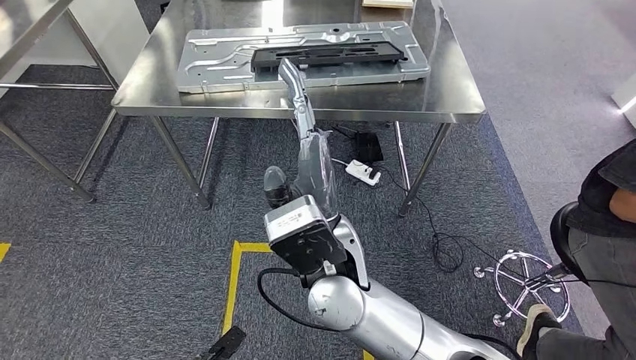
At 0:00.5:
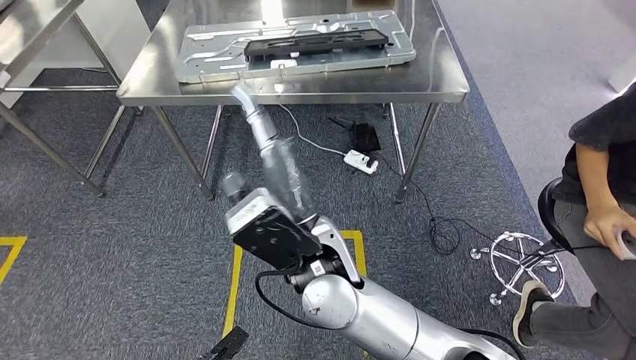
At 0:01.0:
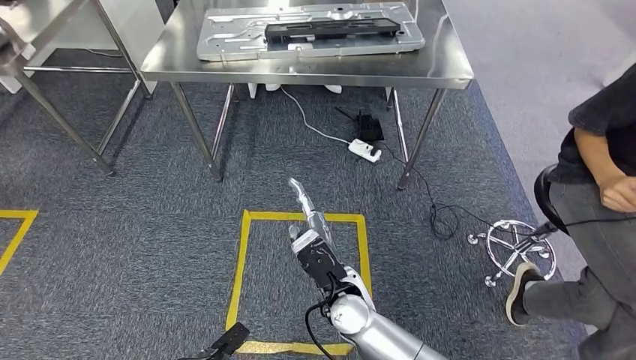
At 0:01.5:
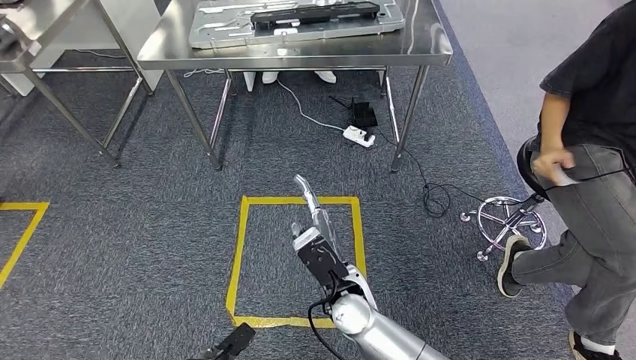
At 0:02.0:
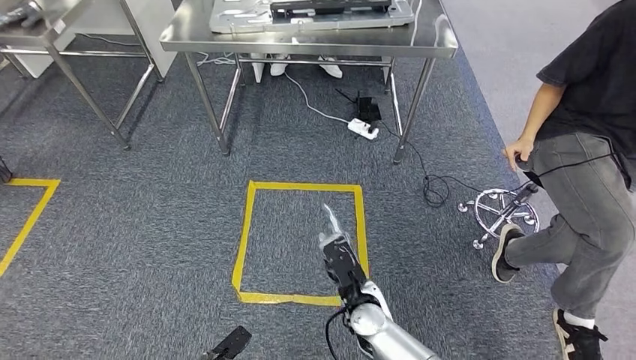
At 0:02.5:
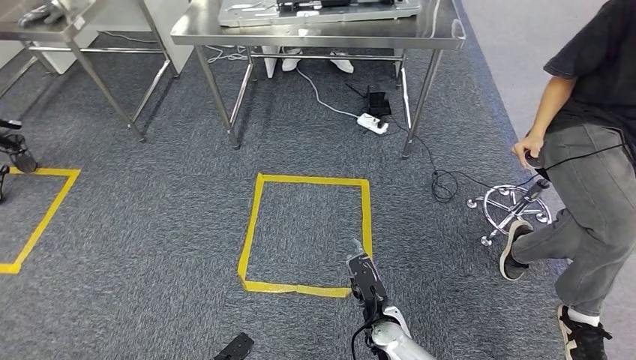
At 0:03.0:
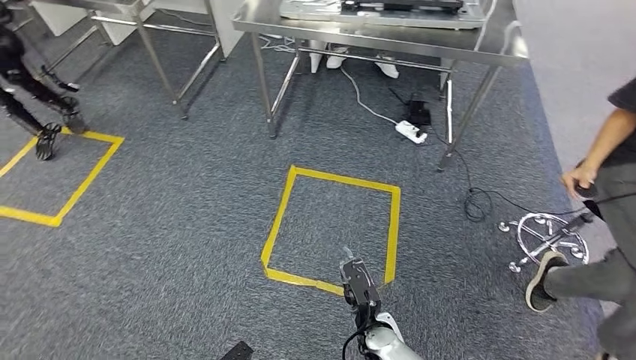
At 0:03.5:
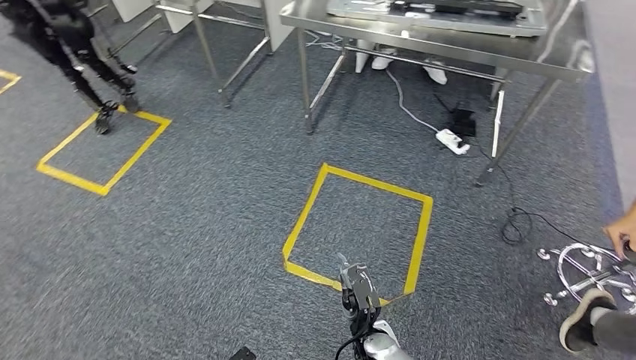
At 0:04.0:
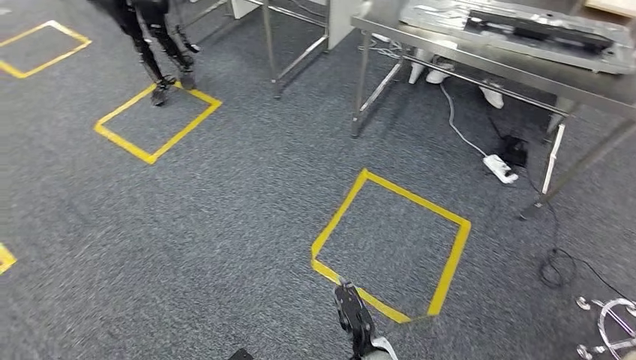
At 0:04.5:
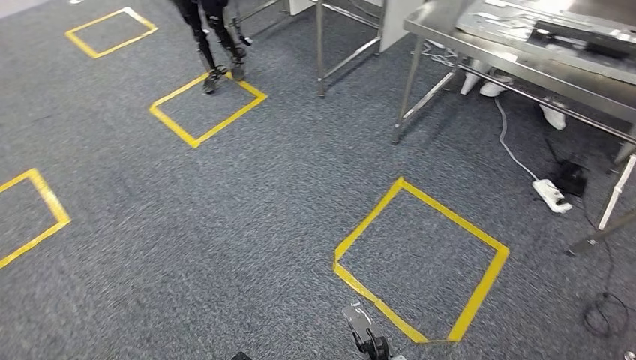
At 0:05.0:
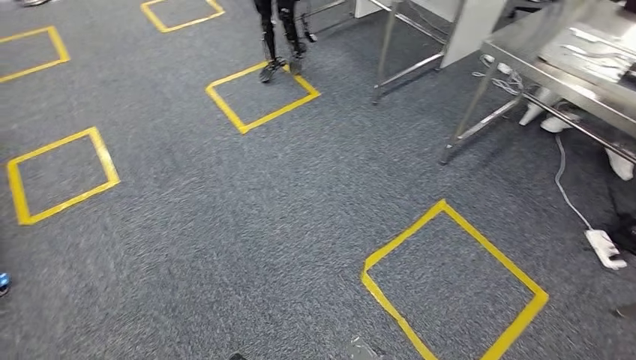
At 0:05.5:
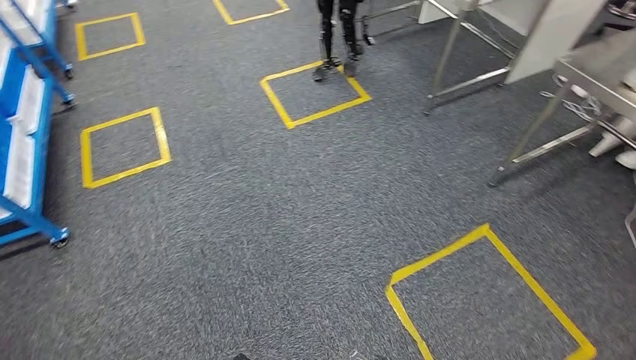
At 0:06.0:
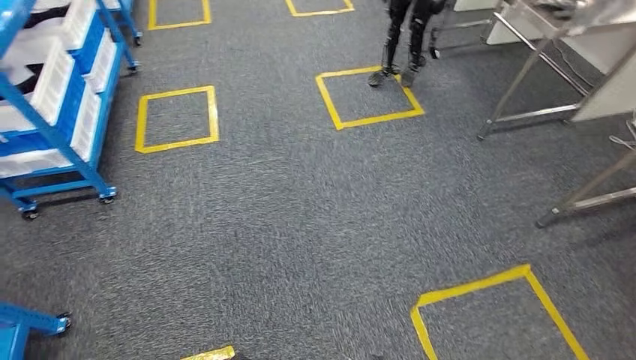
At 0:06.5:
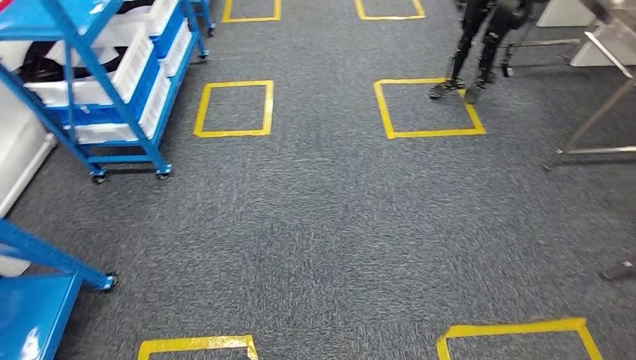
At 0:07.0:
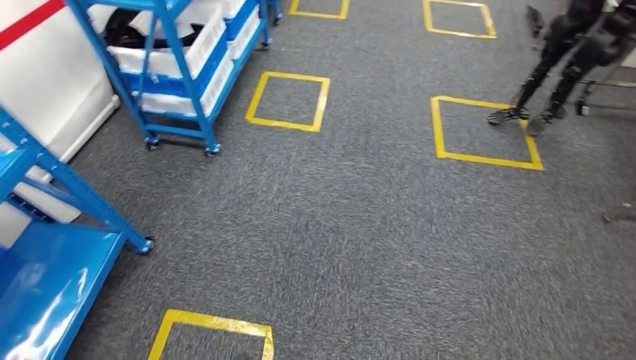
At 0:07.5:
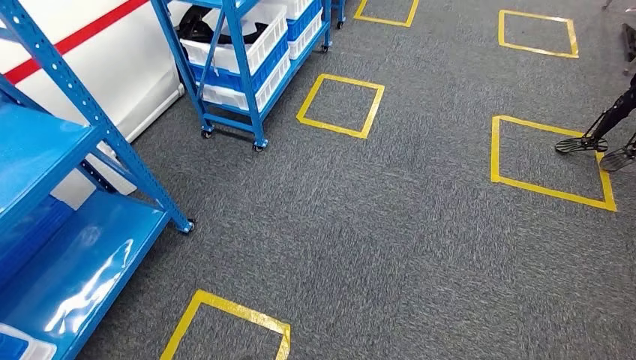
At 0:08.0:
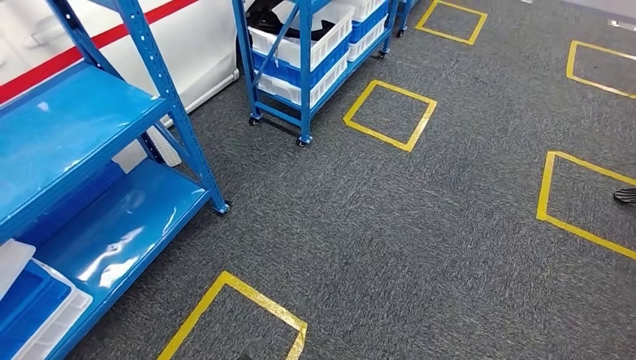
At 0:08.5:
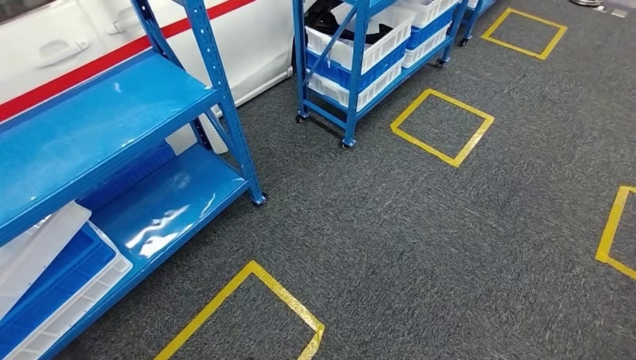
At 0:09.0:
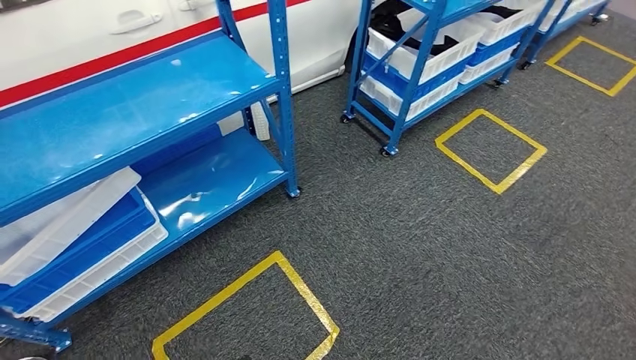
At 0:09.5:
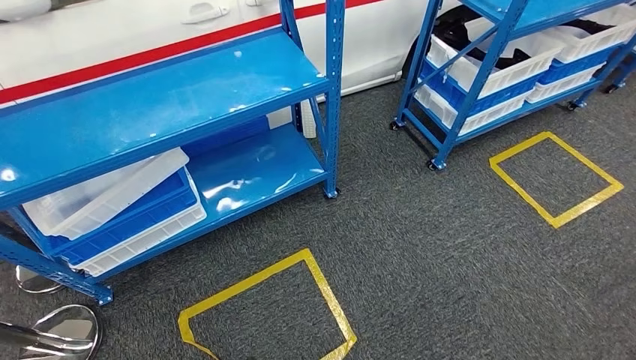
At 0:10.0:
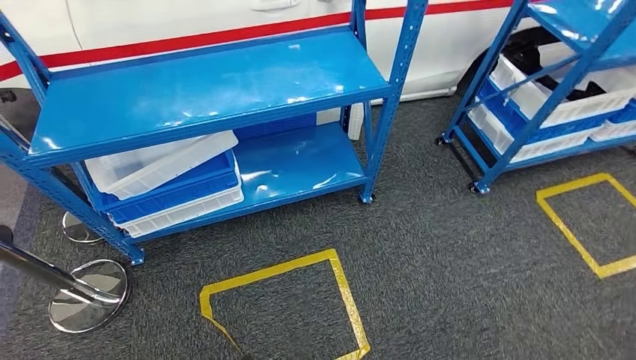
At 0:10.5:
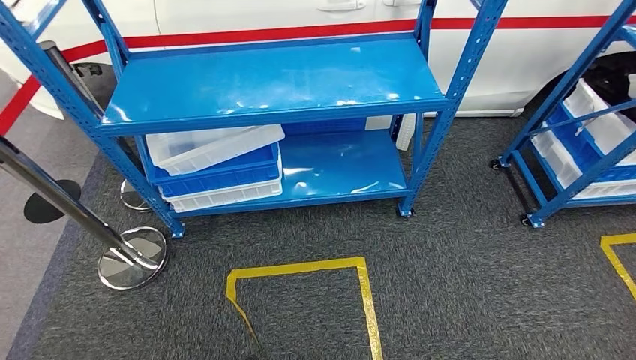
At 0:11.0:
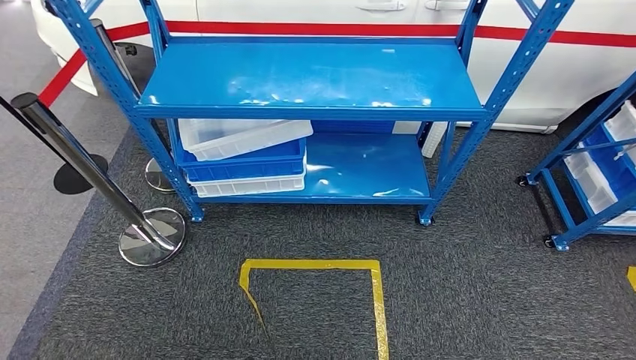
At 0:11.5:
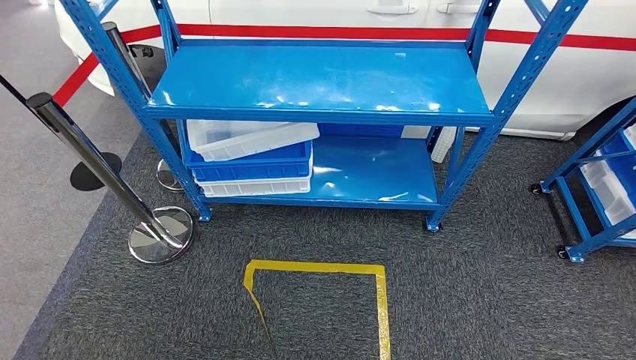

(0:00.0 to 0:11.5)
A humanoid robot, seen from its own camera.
Step, 0:00.0 - 0:11.5: Return to the initial position at the shelf.
